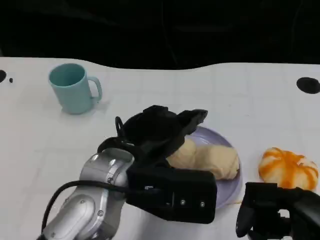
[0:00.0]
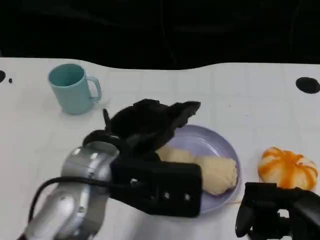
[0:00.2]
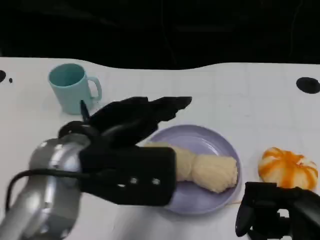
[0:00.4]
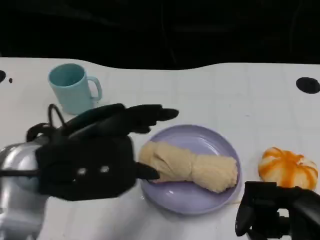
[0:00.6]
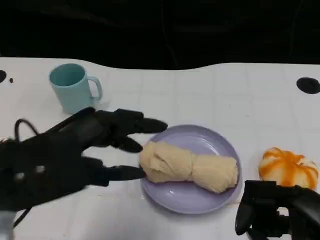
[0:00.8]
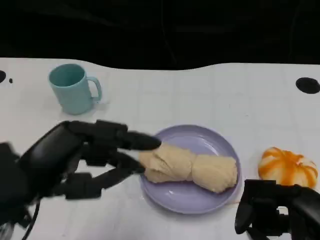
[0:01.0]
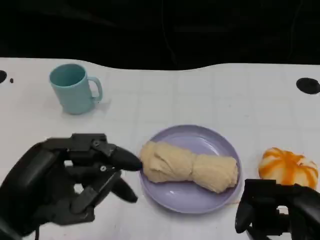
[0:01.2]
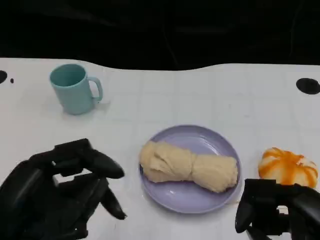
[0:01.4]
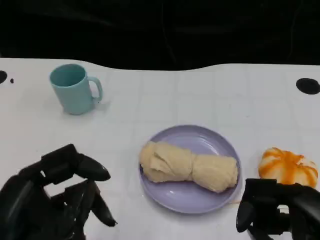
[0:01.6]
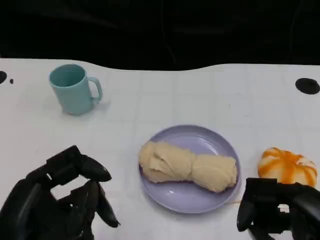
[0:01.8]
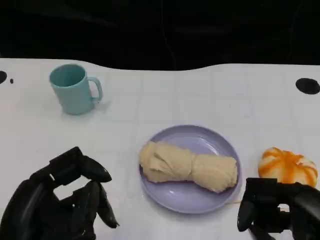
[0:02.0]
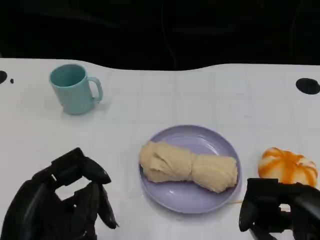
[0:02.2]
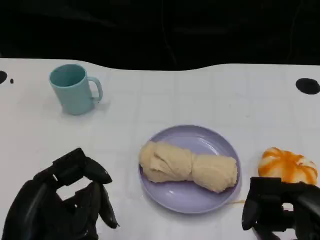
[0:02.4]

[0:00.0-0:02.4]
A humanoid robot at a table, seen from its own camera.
Task of the whole recording: Grasp the towel on the left side of the plate with the left hand and place it into the plate.
0:00.0 to 0:01.2: The left hand is displaced to the left and backward by roughly 15 cm.

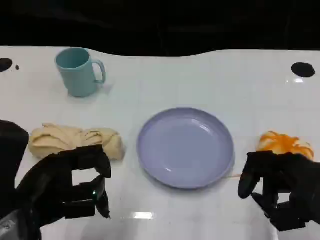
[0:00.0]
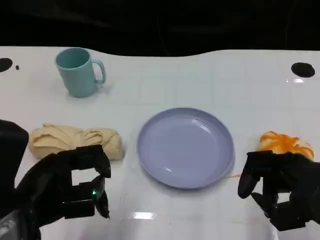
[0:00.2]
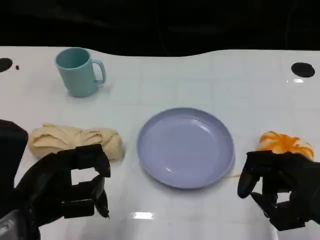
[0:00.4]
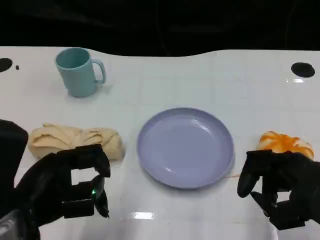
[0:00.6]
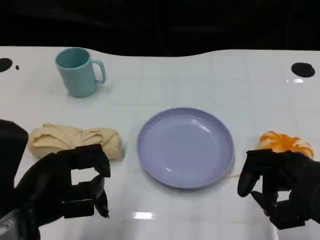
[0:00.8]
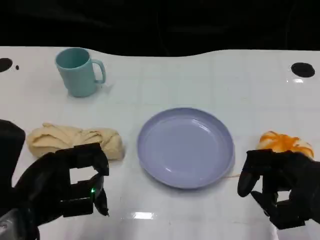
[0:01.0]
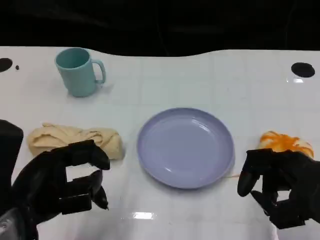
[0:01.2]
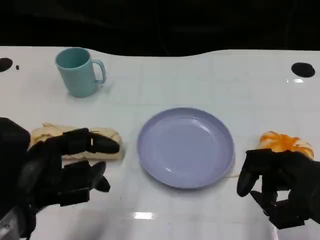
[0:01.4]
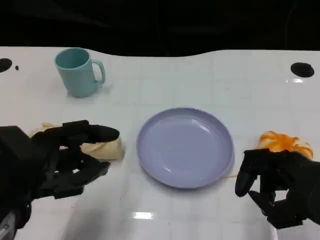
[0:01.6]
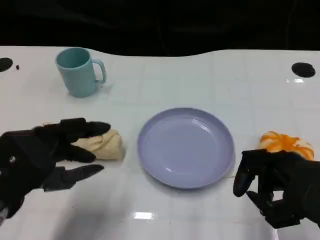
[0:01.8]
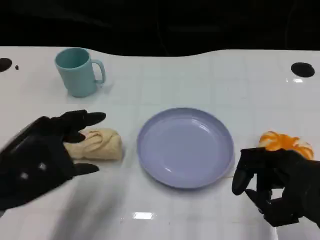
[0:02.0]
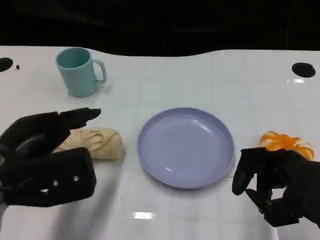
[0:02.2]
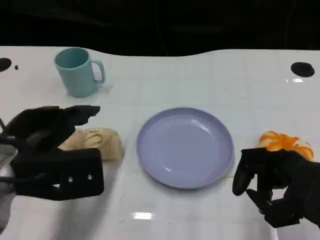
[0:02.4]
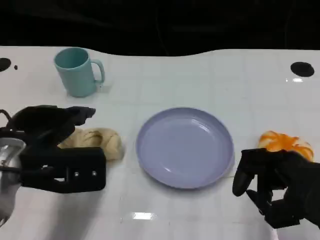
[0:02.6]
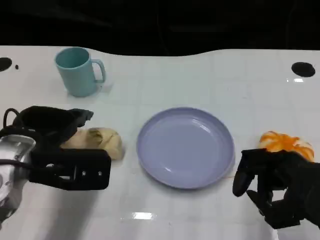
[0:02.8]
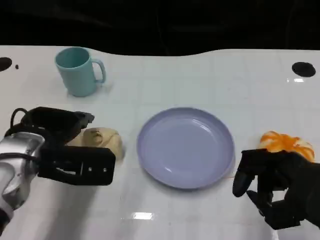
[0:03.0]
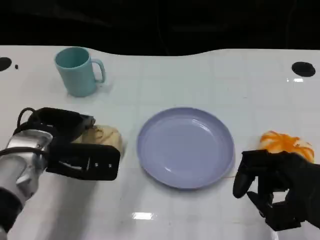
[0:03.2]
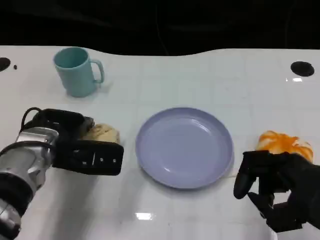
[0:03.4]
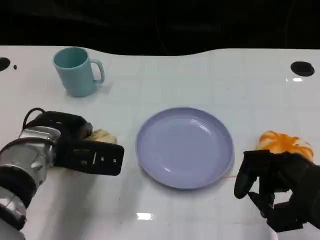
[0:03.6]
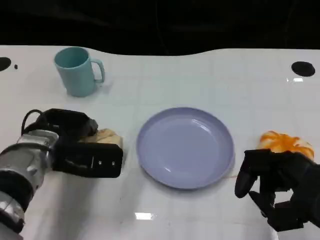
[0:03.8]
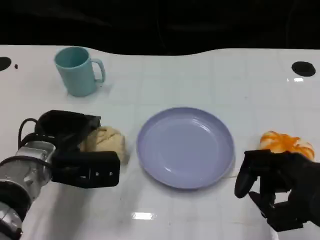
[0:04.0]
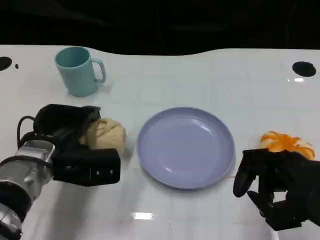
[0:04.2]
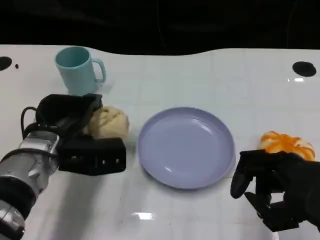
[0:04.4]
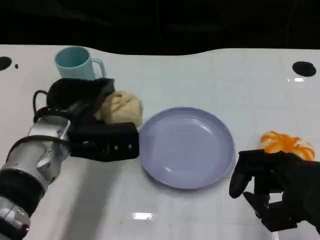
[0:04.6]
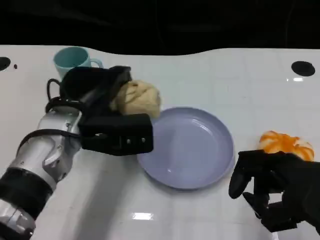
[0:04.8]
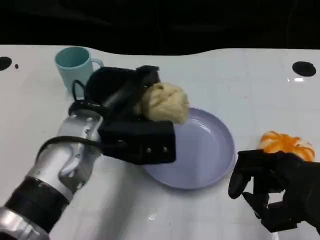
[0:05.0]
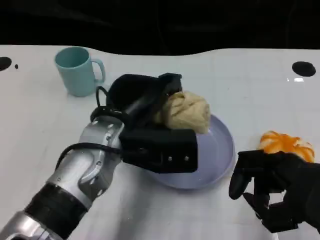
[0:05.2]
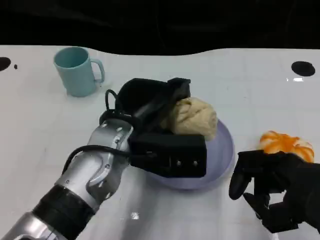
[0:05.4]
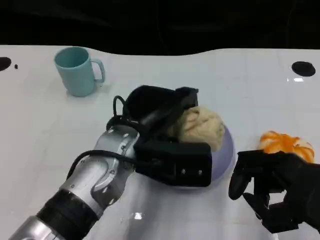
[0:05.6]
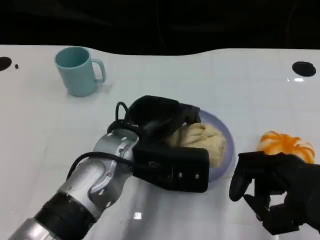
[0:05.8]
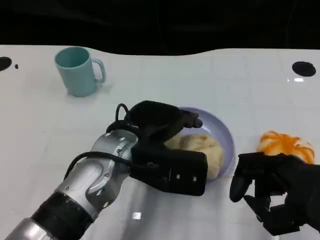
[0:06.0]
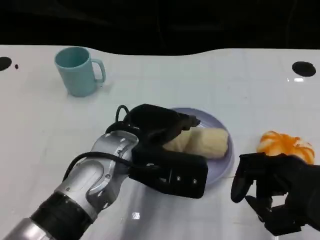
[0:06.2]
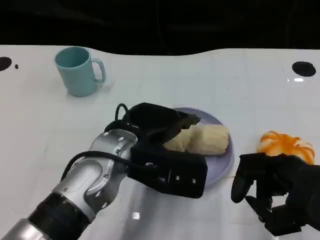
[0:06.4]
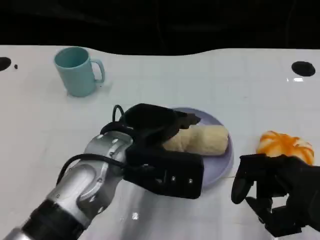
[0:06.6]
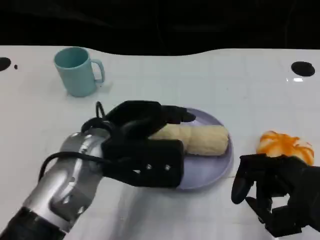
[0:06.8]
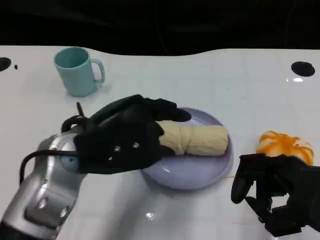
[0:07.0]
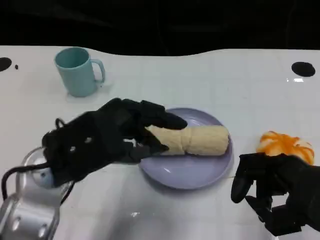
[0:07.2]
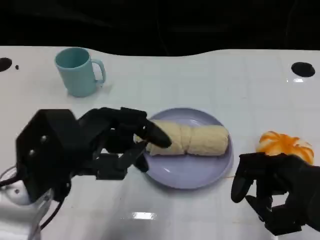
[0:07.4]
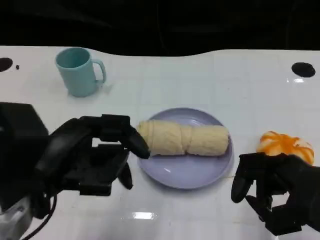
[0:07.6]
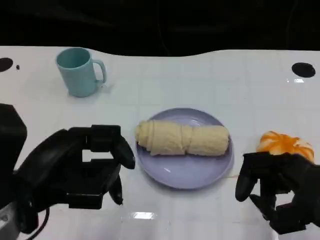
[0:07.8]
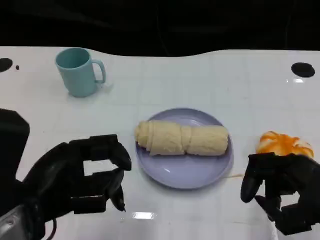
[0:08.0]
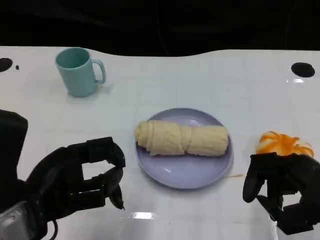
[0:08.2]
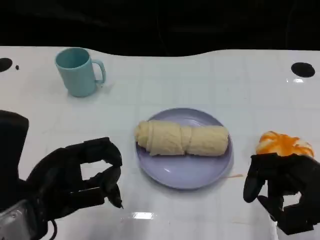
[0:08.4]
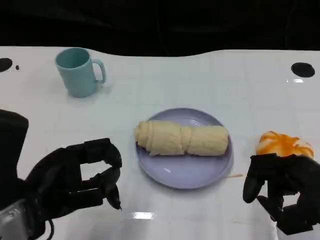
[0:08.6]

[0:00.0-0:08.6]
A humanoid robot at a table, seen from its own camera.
Task of the whole recording: Grasp the towel on the left side of the plate with the left hand and place it into the plate.
0:00.0 to 0:01.4: There are only small adjustments of the hands.
0:01.4 to 0:02.8: The left hand goes about 10 cm forward.
0:02.8 to 0:04.4: The left hand moves some 5 cm.
0:04.4 to 0:05.8: The left hand shifts some 10 cm to the right.
0:05.8 to 0:07.2: The left hand is displaced to the left by some 10 cm.
0:07.2 to 0:08.6: The left hand moves about 5 cm.

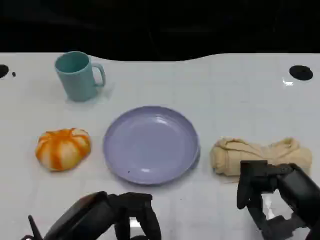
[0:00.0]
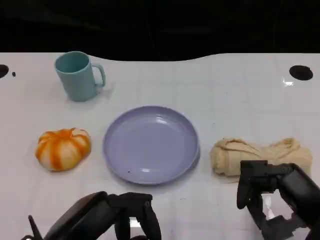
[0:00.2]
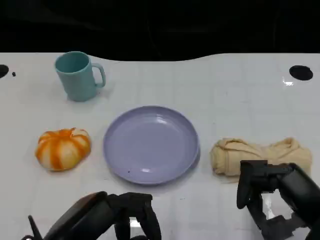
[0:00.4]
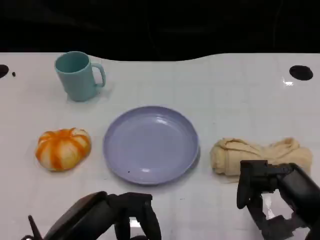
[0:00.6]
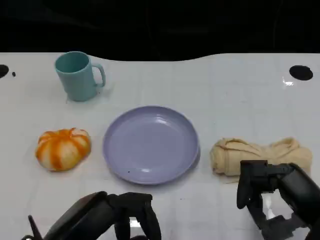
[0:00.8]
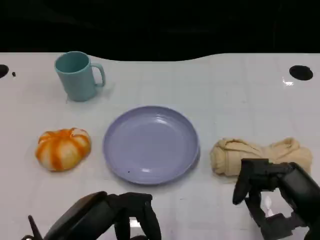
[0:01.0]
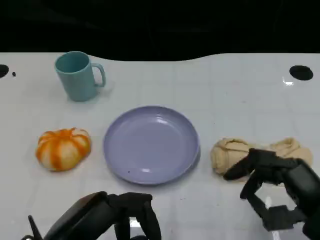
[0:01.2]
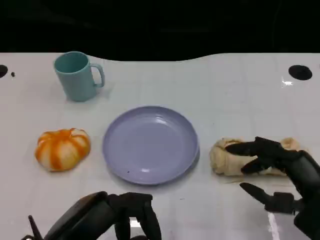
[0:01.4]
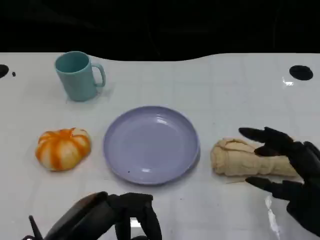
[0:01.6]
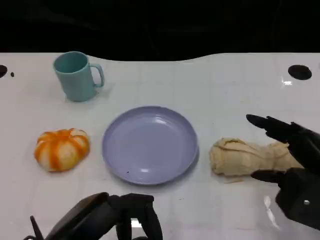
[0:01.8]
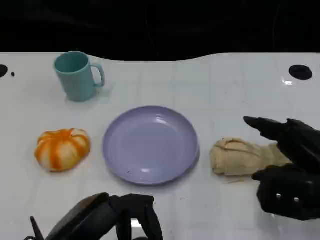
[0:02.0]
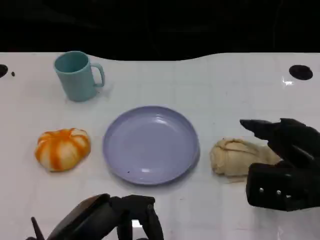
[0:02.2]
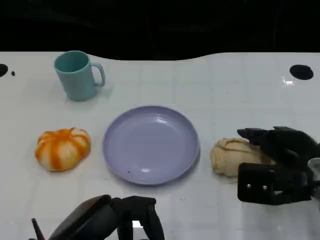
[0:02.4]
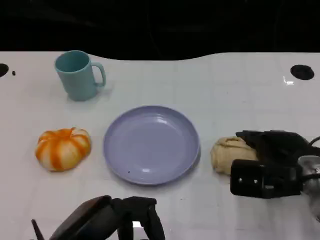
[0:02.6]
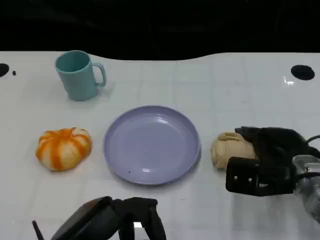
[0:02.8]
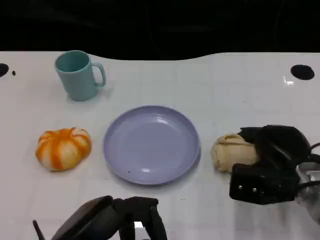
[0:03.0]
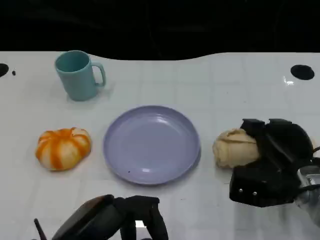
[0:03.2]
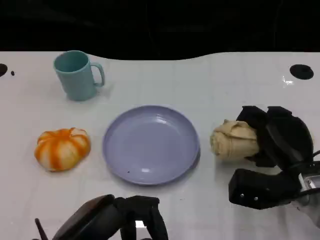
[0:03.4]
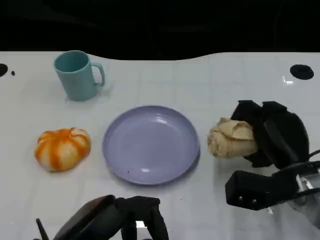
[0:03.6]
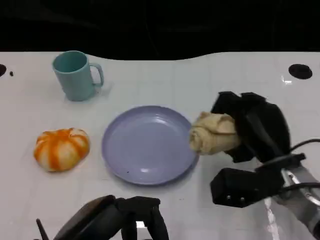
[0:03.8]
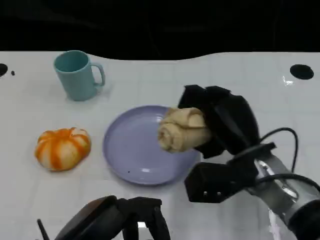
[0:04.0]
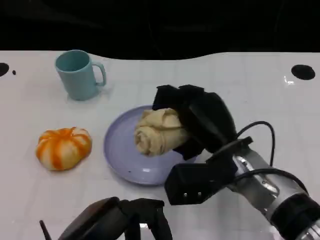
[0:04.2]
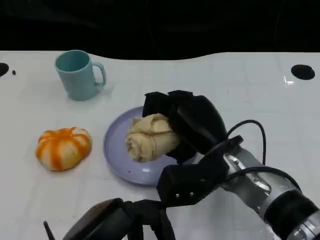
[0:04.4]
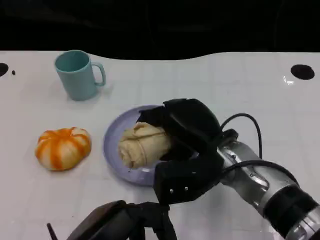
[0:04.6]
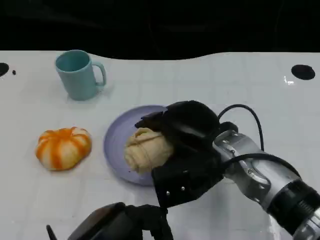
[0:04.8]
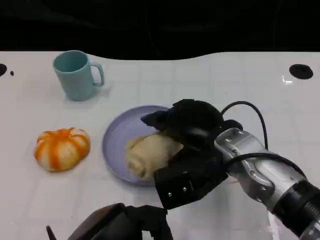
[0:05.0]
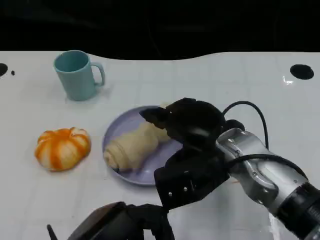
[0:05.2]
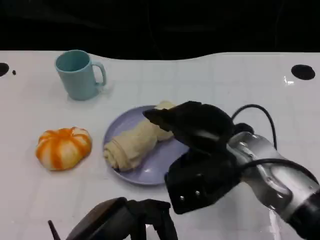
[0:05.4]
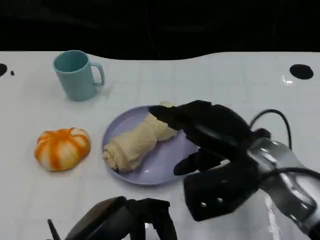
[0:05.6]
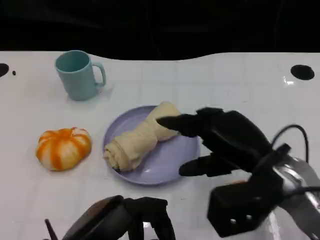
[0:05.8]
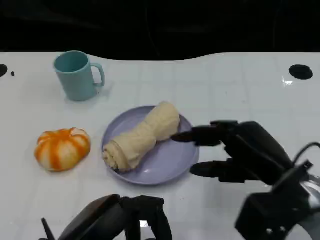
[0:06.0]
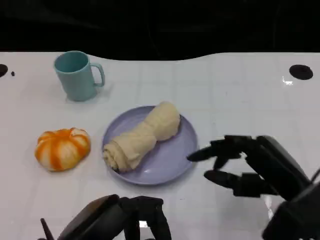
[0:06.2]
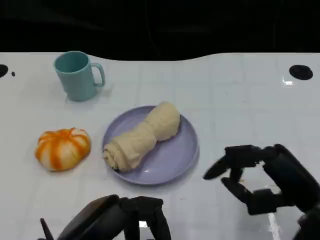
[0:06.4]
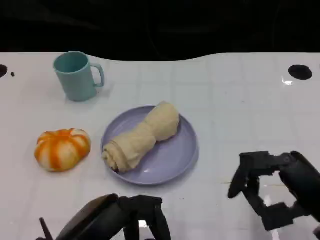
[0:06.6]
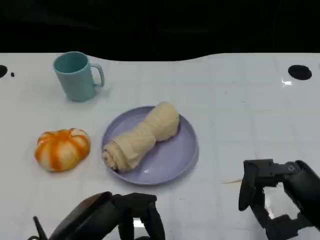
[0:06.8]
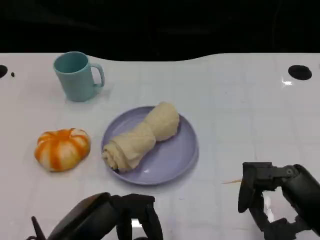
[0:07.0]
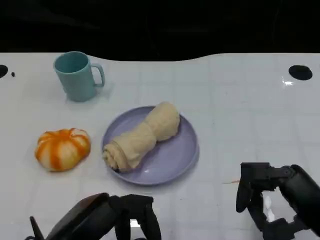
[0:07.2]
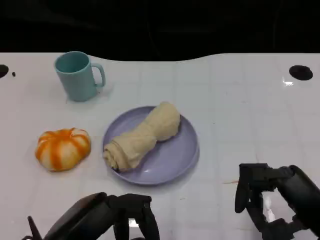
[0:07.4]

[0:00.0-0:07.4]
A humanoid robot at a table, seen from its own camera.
Task of the whole recording: Grasp the towel on the left side of the plate with the left hand and place it into the plate.
0:00.0 to 0:01.4: The hands move only a little.
0:01.4 to 0:03.0: The right hand goes roughly 10 cm forward and downward.
0:03.0 to 0:04.4: The right hand shifts approximately 15 cm to the left and upward.
0:04.4 to 0:06.0: The right hand travels to the right and backward by approximately 10 cm.
0:06.0 to 0:07.4: The right hand moves backward, some 5 cm.

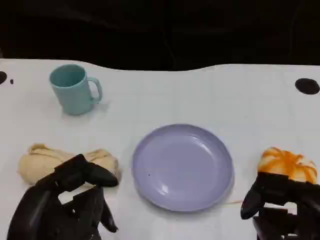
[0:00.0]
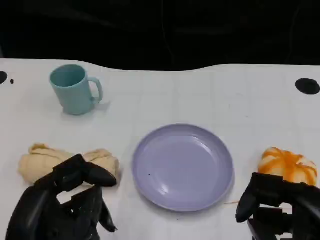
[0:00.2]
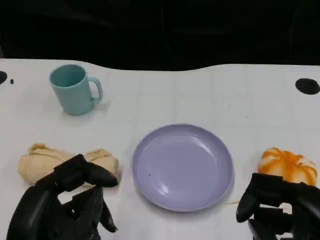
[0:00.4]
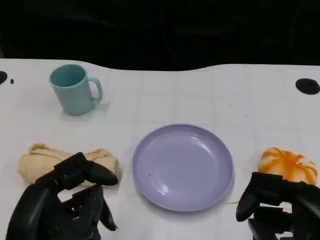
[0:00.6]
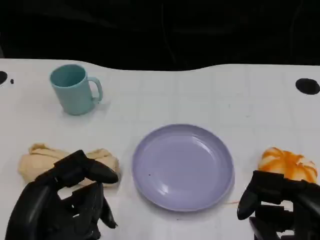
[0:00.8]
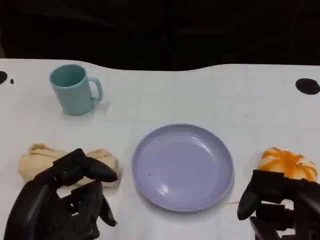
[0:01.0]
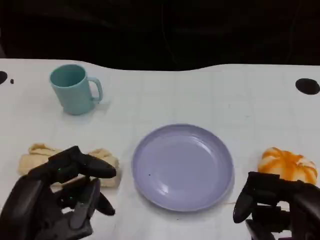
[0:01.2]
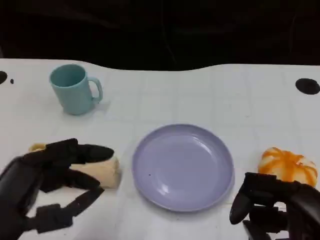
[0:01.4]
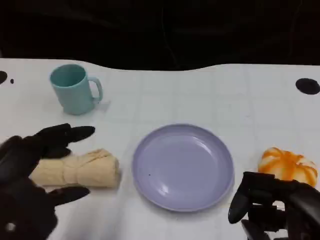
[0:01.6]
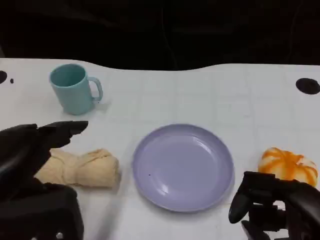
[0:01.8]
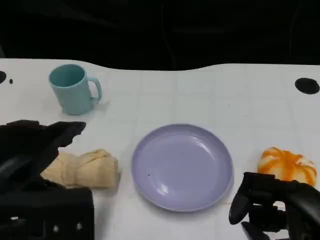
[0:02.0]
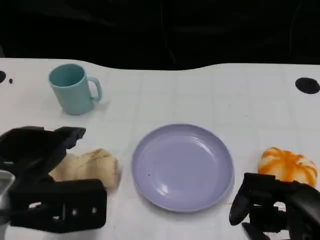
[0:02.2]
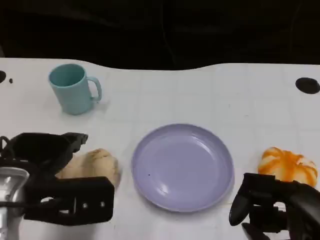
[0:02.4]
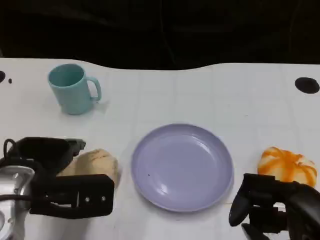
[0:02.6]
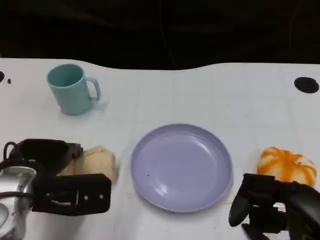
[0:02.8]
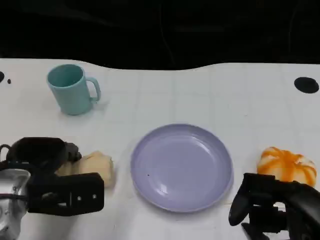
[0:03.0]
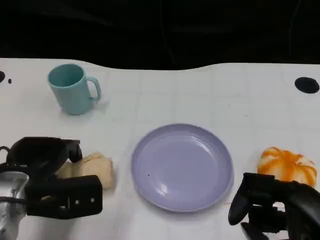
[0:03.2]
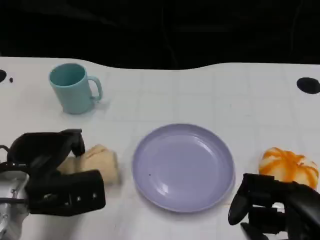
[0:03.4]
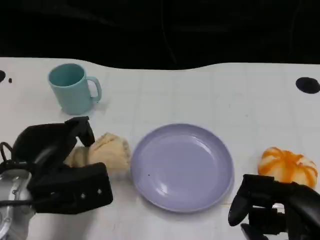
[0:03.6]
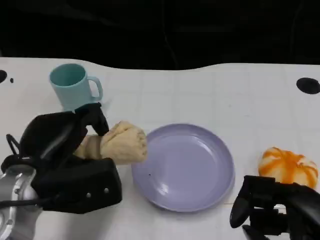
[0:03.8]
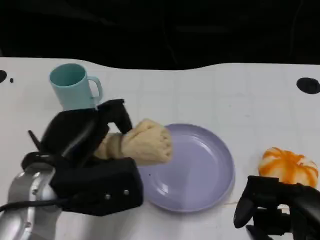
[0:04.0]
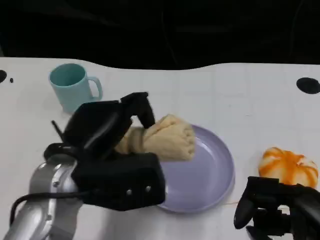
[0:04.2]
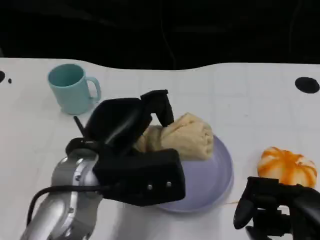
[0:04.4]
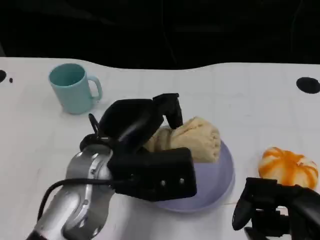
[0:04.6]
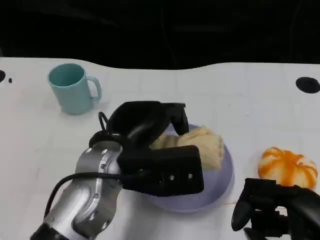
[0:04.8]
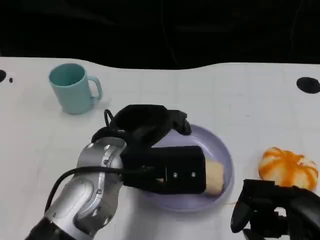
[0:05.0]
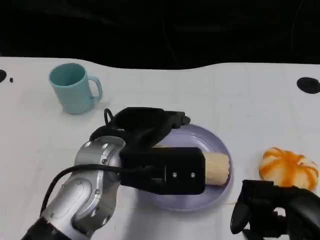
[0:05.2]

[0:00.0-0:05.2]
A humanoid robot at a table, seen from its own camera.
Task of the whole recording: Grasp the towel on the left side of the plate with the left hand and place it into the plate.
0:00.0 to 0:01.8: The left hand shifts approximately 5 cm upward.
0:01.8 to 0:03.4: The left hand heads downward and forward, covering approximately 15 cm.
0:03.4 to 0:05.2: The left hand heads to the right and upward, covering approximately 15 cm.
